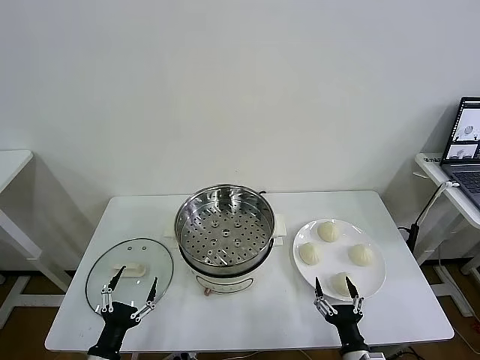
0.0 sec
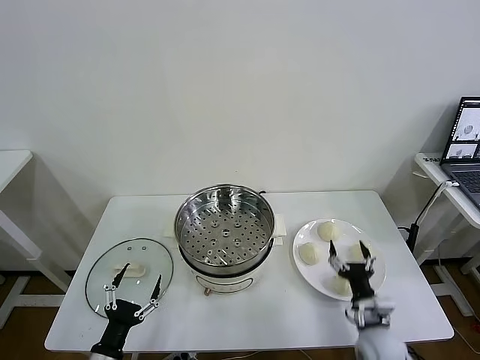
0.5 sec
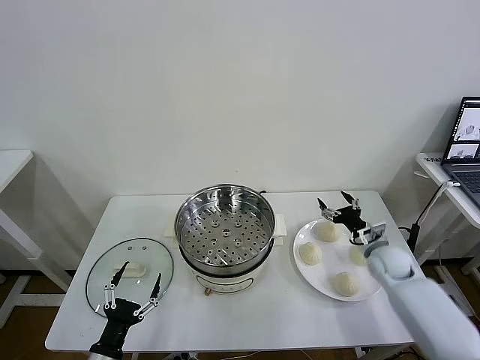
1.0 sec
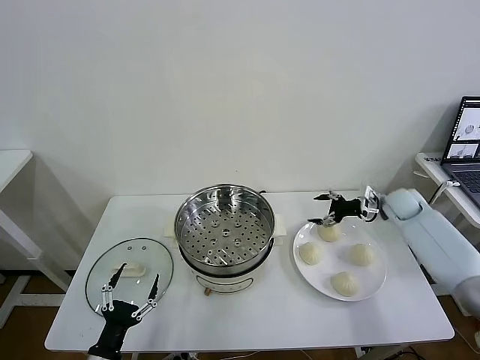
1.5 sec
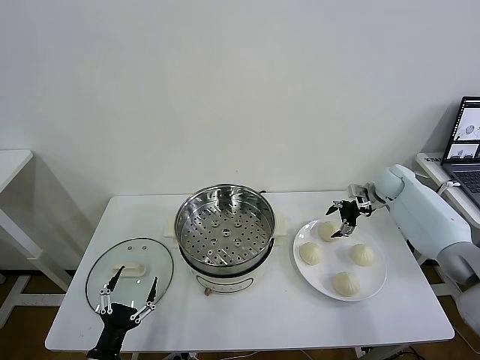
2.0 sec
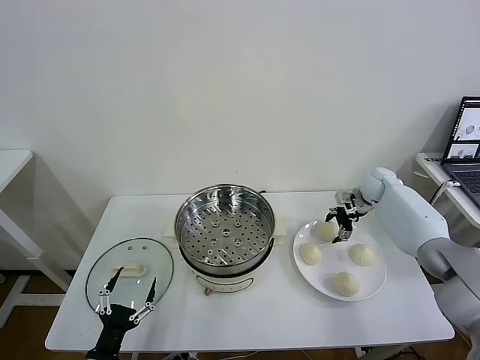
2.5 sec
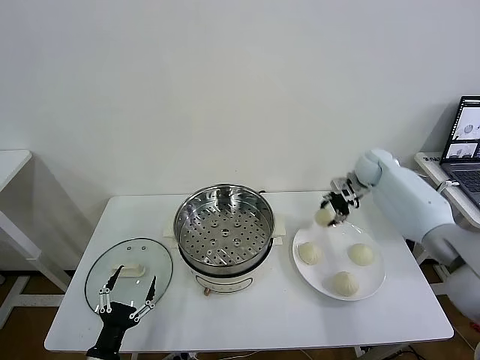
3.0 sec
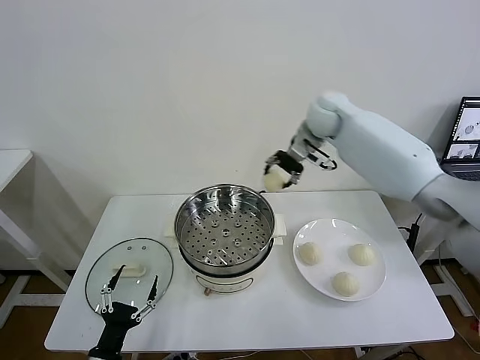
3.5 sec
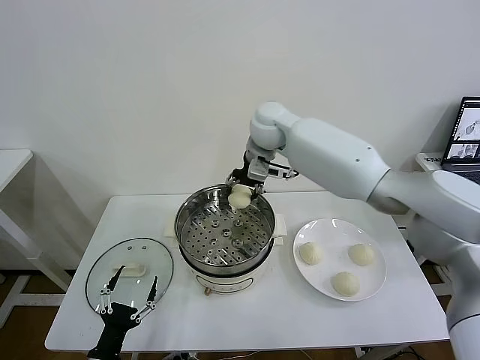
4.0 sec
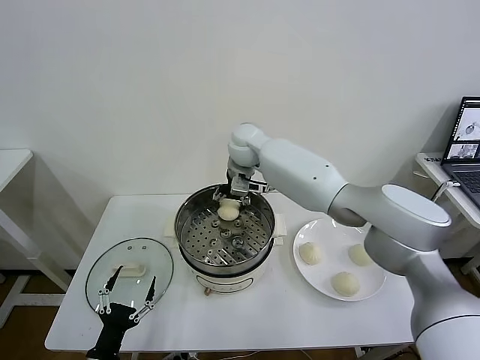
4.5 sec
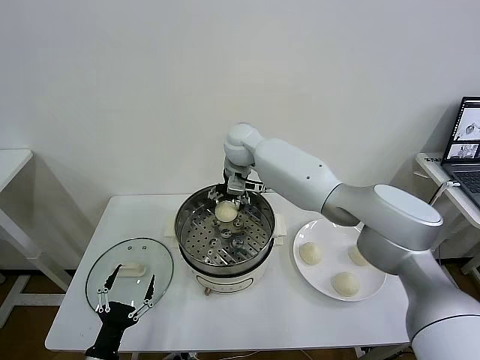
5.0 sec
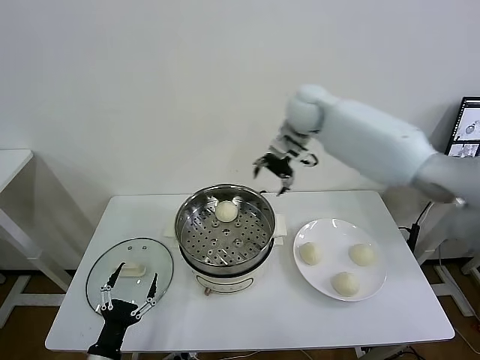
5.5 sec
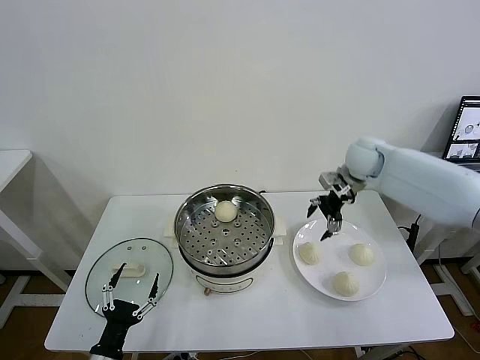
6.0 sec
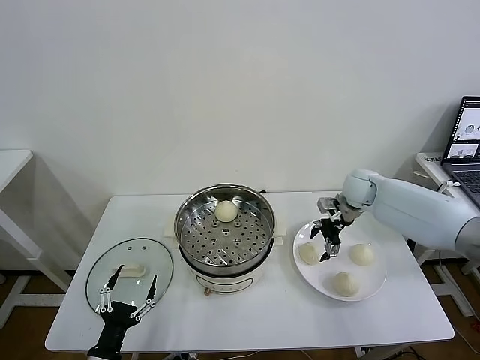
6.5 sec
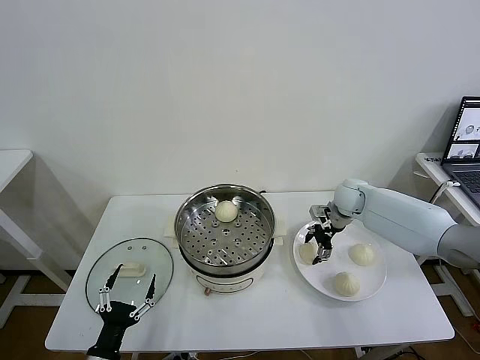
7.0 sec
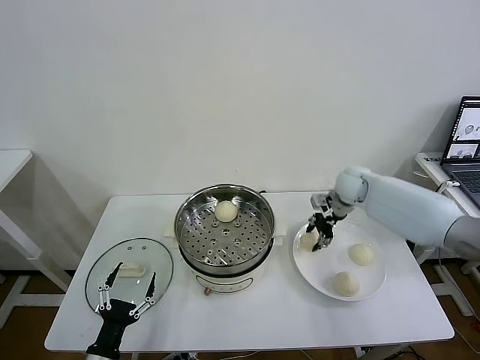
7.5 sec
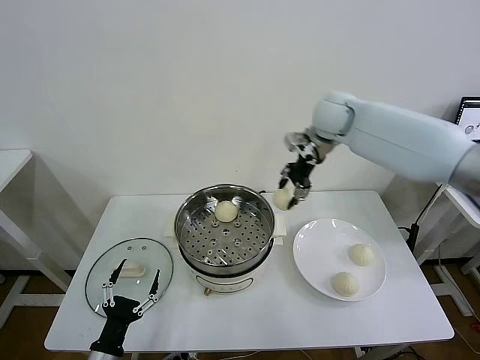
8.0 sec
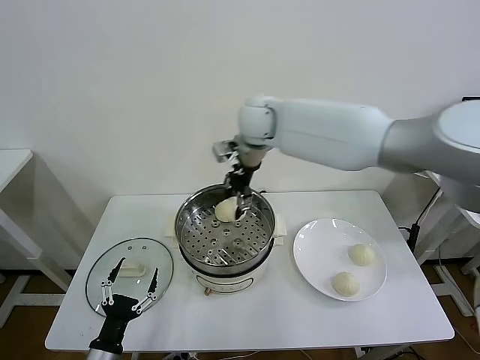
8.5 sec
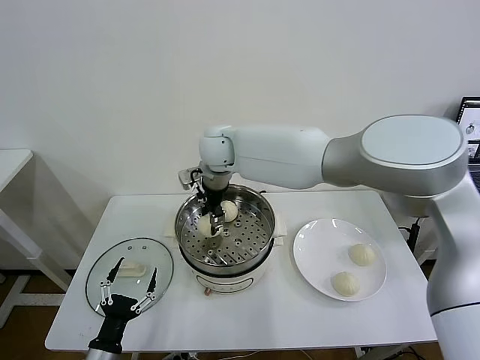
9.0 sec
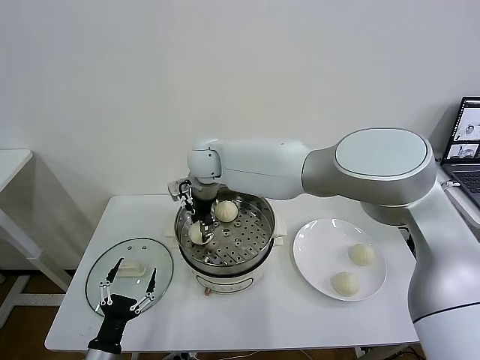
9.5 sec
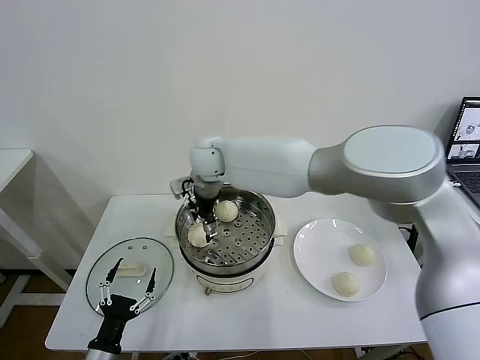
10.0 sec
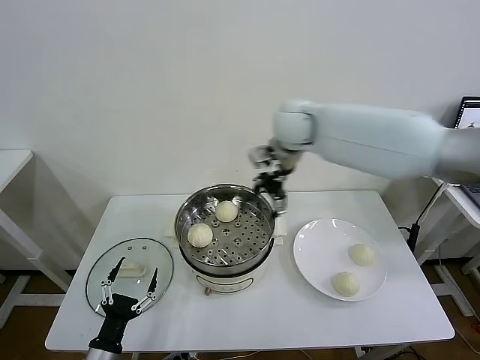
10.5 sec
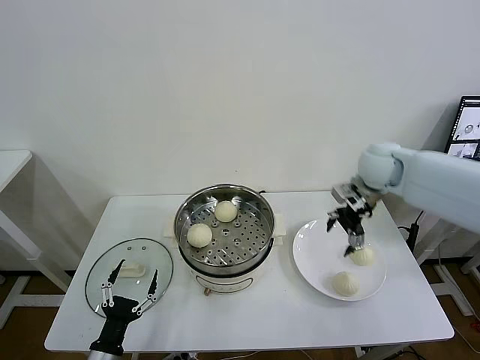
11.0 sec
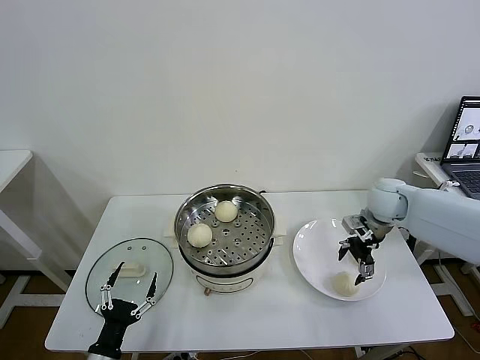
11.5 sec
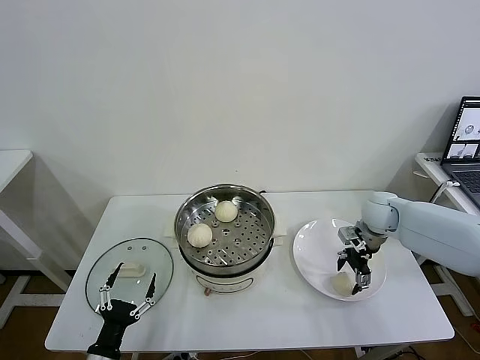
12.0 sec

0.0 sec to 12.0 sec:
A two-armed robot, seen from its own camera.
Task of the whole recording: take steamed baozi put them in steamer then cover it.
Step, 0.0 sec to 2.5 sec: Grasp the baozi in the plate with right gripper.
Step, 3.0 sec to 4.5 sec: Place the baozi on the steamer with right gripper.
Step, 5.0 sec to 7.0 sec: Grasp the baozi in the plate with right gripper.
Step, 7.5 sec to 9.5 sec: Place the baozi on the steamer with right gripper.
2.0 sec to 4.0 sec: The right gripper goes approximately 40 cm to the left and upward, and closes up.
4.0 sec to 6.0 sec: The right gripper shifts roughly 25 cm to the right, and opens.
6.0 sec to 8.0 sec: The right gripper travels upward and to the left by roughly 20 cm, and closes.
8.0 sec to 10.0 sec: The right gripper travels to the left by roughly 20 cm, and opens its fingers.
10.0 sec to 12.0 sec: The right gripper moves to the right, roughly 40 cm.

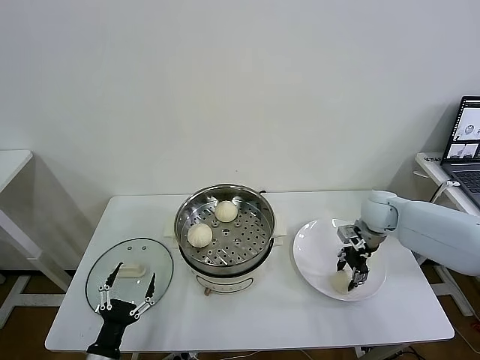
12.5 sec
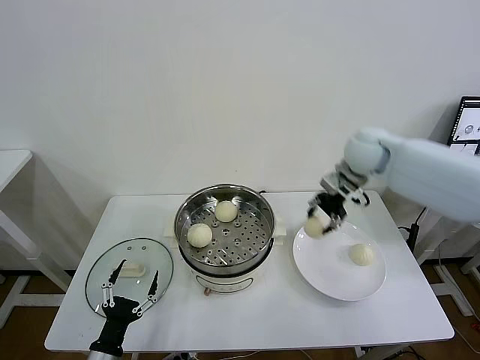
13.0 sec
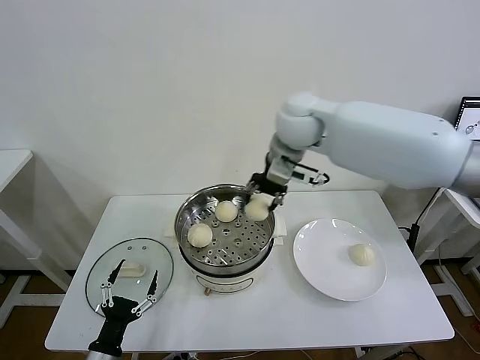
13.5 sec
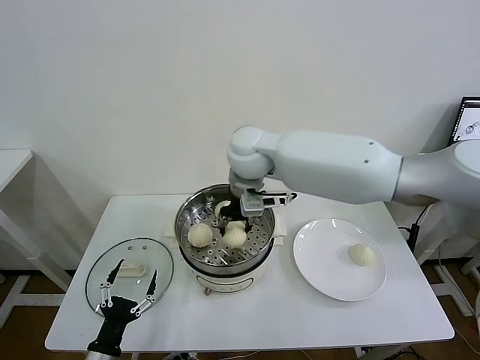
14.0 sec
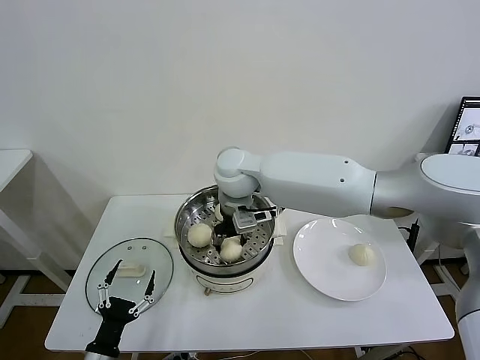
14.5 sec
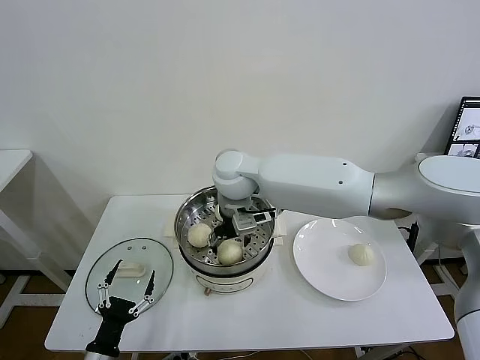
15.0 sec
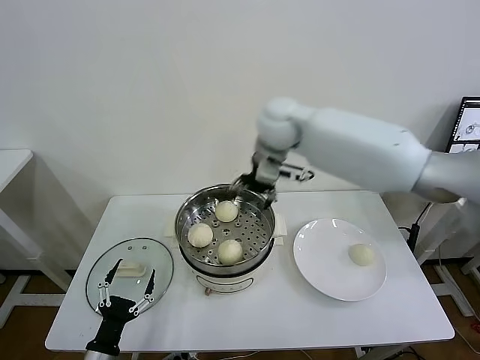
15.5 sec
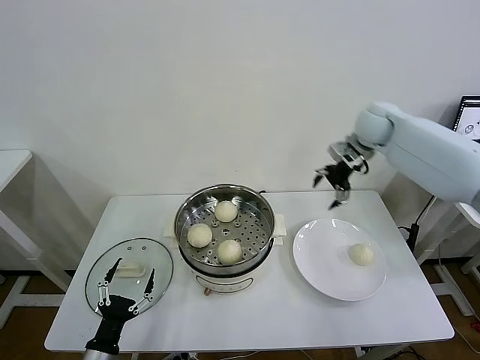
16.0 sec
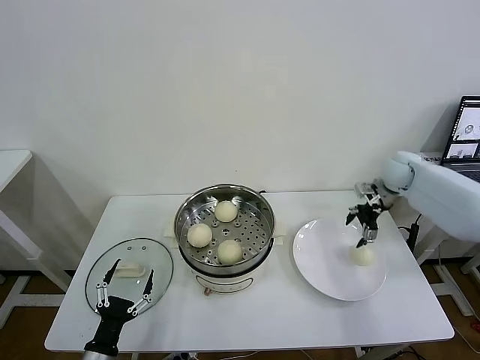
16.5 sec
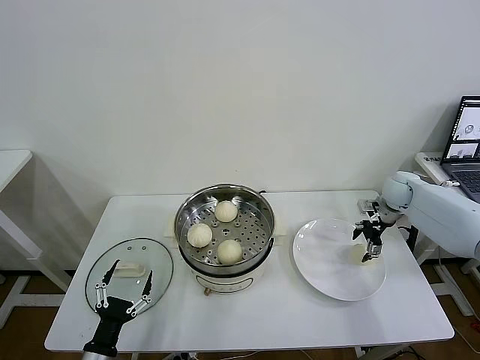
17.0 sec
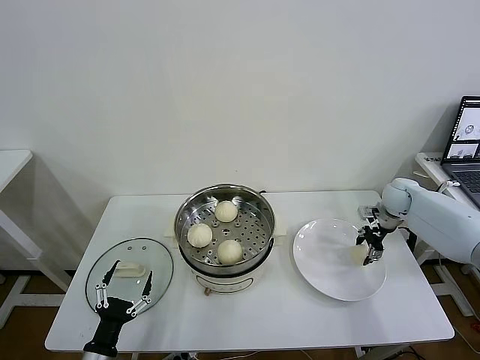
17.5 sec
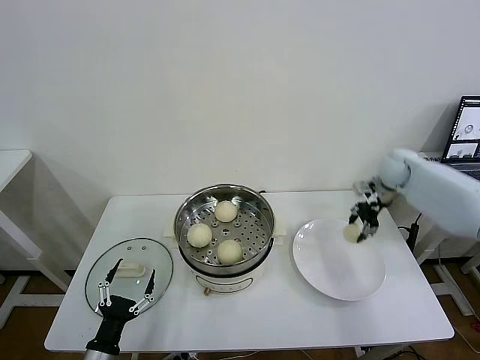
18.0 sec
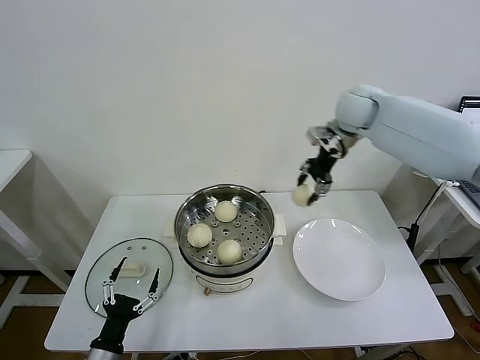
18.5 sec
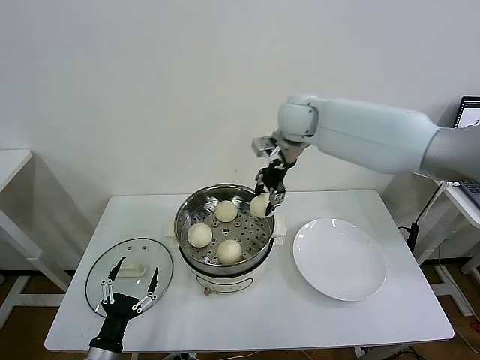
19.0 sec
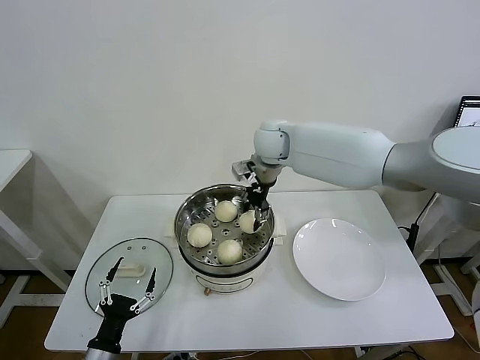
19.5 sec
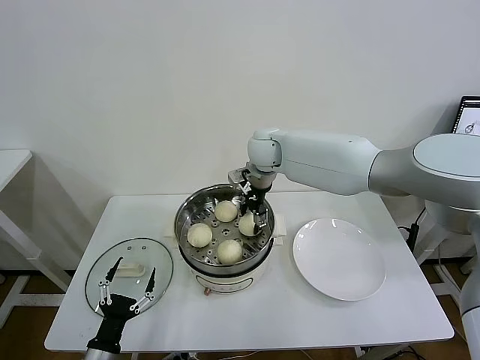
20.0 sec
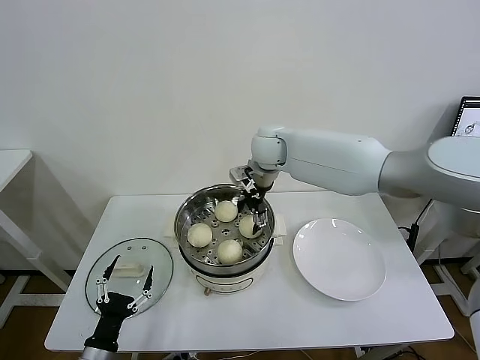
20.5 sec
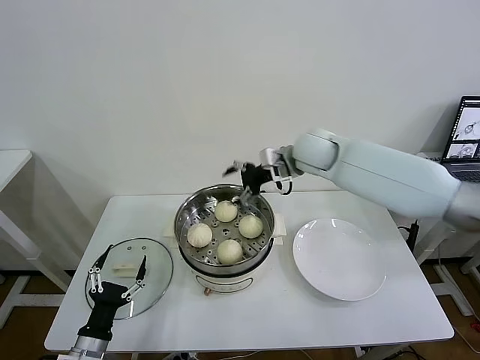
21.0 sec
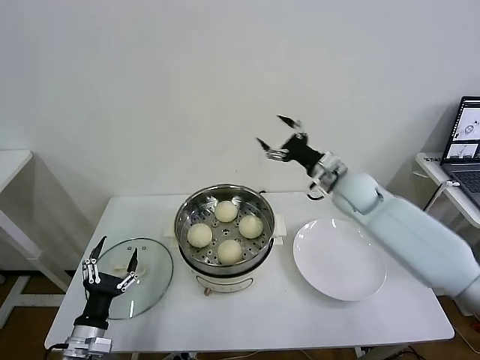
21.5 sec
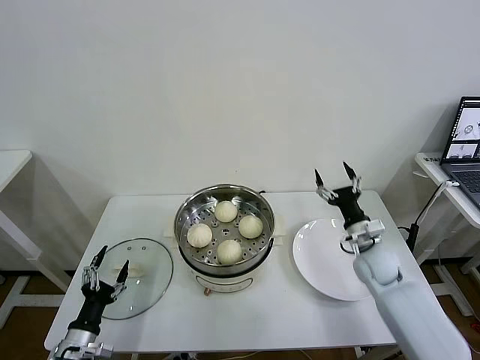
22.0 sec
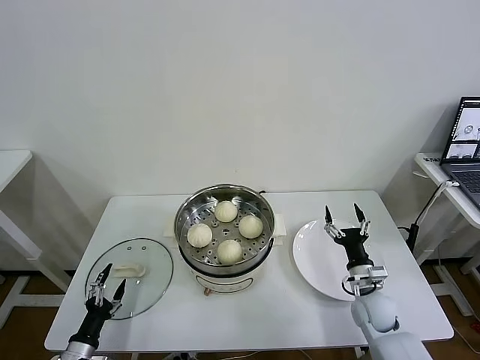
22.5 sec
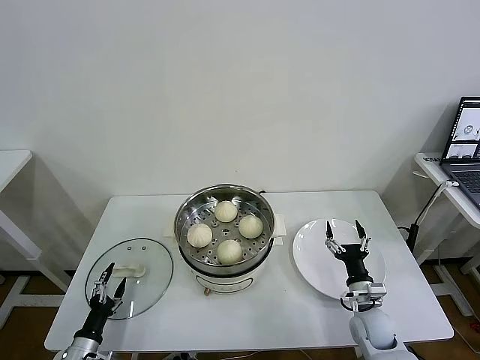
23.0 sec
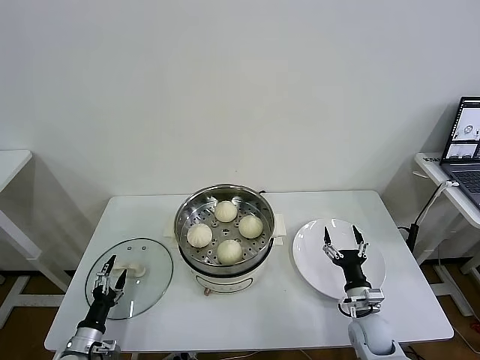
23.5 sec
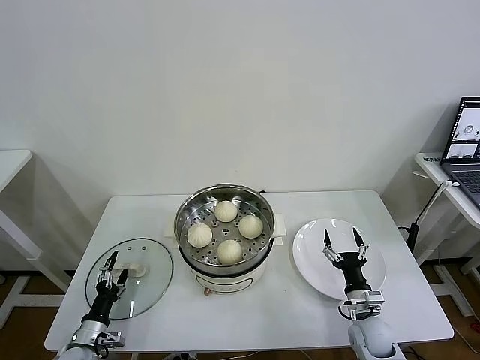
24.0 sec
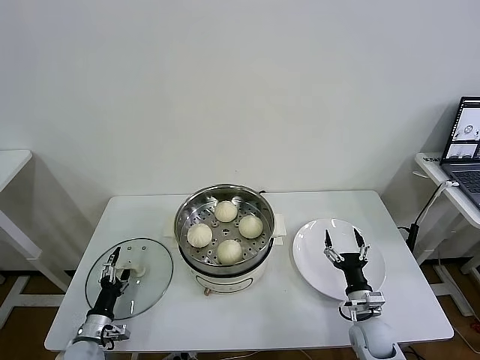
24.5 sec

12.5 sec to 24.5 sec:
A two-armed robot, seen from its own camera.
Task of the whole recording: take steamed baozi put them in steamer then cover it.
Step, 12.5 sec to 14.5 sec: Place the baozi on the steamer with right gripper.
Step, 15.0 sec to 17.5 sec: Grasp the baozi in the plate with right gripper.
Step, 18.0 sec to 20.0 sec: Place the baozi on the steamer with right gripper.
12.5 sec to 14.5 sec: The right gripper shifts approximately 35 cm to the left.
14.5 sec to 16.5 sec: The right gripper moves to the right, some 40 cm, and opens up.
16.5 sec to 18.5 sec: The right gripper moves upward and to the left, about 25 cm, and closes its fingers.
18.5 sec to 20.5 sec: The right gripper heads to the left and downward, covering some 20 cm, and opens its fingers.
20.5 sec to 22.5 sec: The left gripper heads to the left and downward, covering some 10 cm, while the right gripper shifts roughly 50 cm downward, to the right and backward.
22.5 sec to 24.5 sec: The right gripper changes place by approximately 5 cm. The left gripper shifts approximately 5 cm forward.

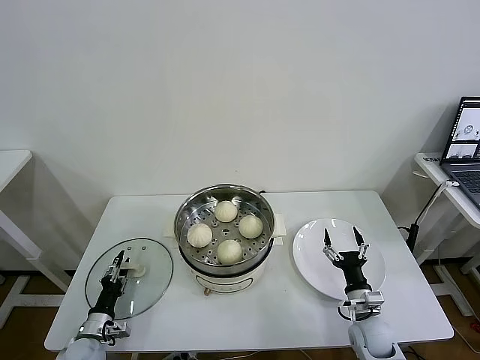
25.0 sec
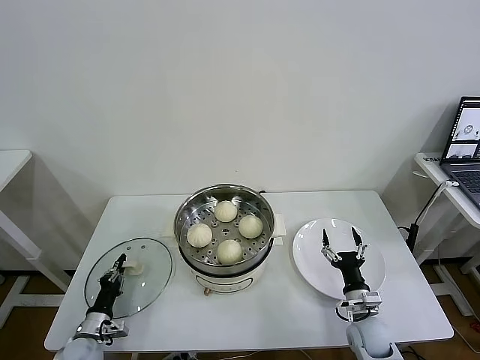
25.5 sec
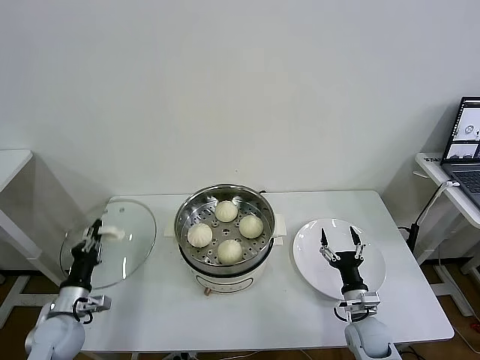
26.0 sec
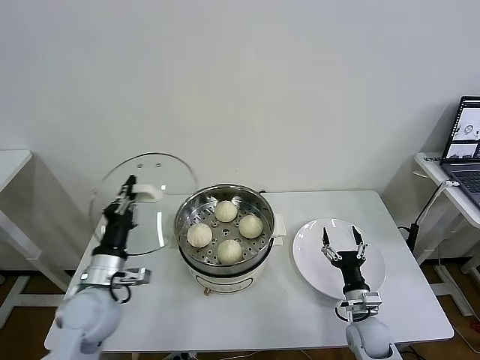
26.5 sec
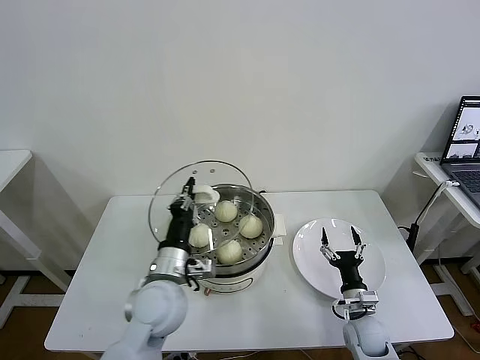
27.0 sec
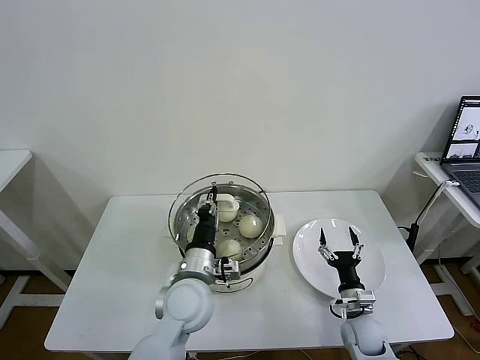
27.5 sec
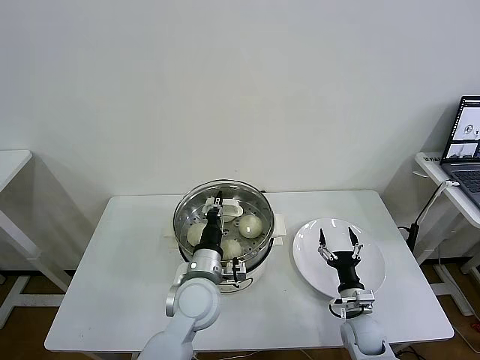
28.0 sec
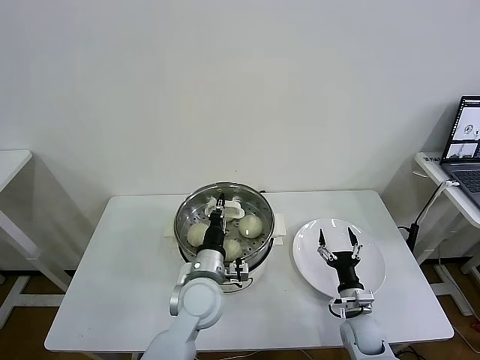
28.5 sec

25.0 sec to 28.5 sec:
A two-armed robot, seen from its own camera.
Task of the whole recording: take steamed baozi put them in steamer then cover it.
25.0 sec to 27.0 sec: The left gripper travels upward and to the right by some 35 cm, and closes its fingers.
27.0 sec to 28.5 sec: The left gripper heads to the right, covering approximately 5 cm.
